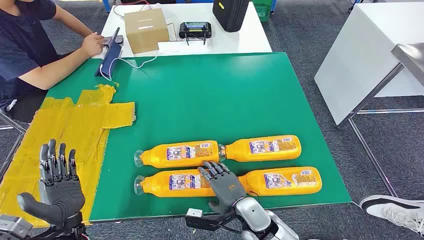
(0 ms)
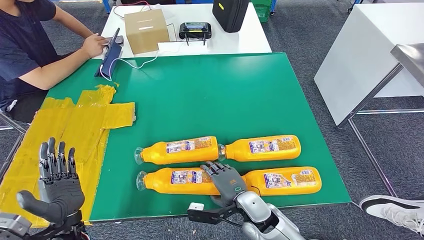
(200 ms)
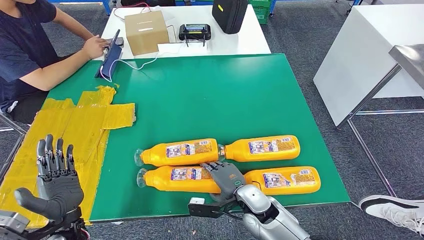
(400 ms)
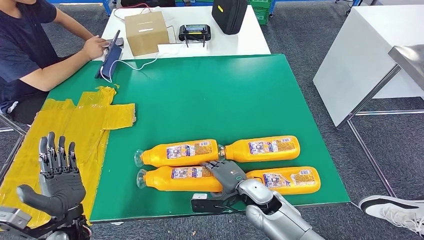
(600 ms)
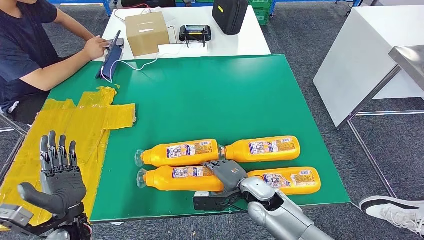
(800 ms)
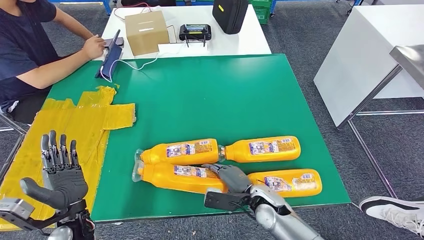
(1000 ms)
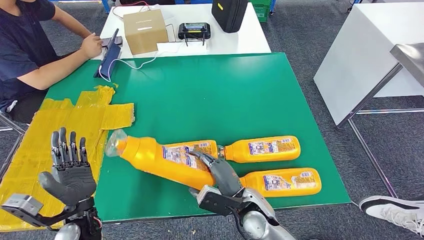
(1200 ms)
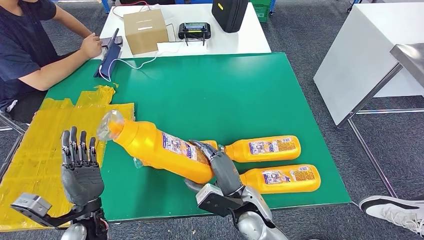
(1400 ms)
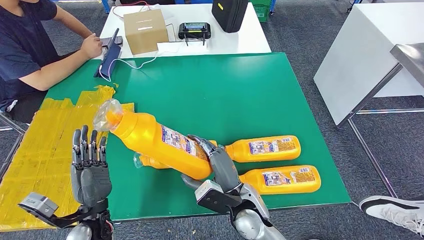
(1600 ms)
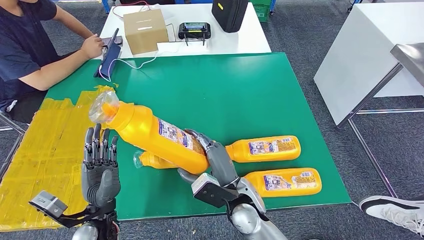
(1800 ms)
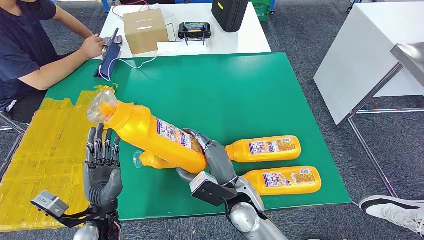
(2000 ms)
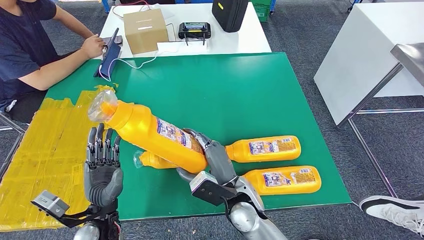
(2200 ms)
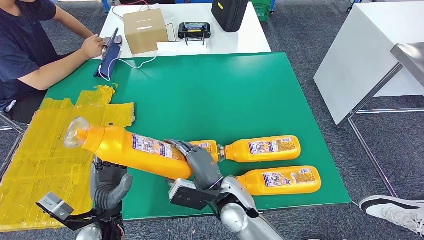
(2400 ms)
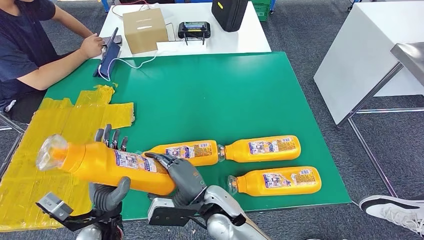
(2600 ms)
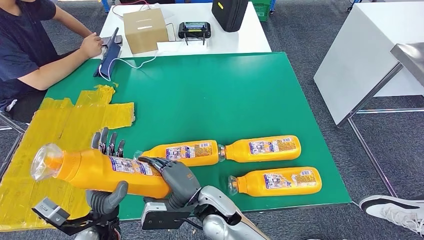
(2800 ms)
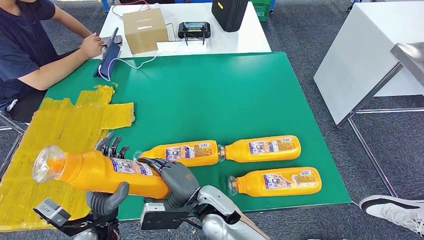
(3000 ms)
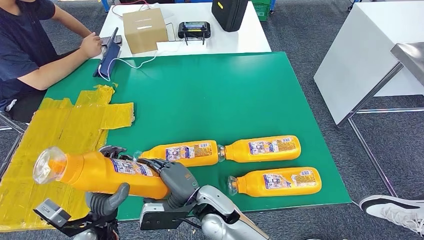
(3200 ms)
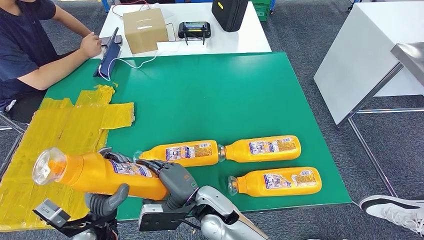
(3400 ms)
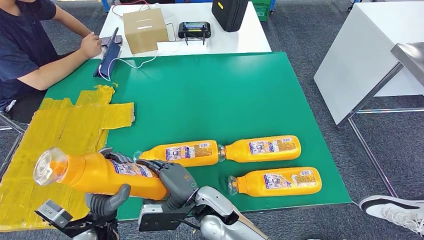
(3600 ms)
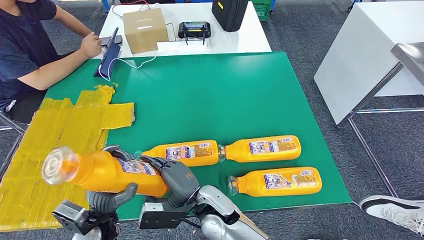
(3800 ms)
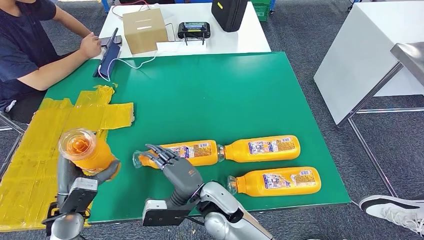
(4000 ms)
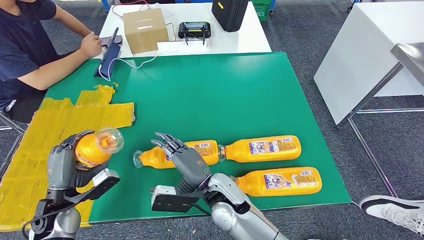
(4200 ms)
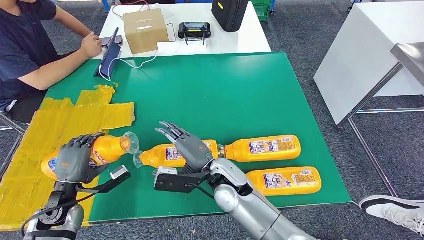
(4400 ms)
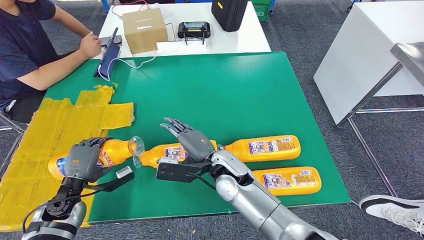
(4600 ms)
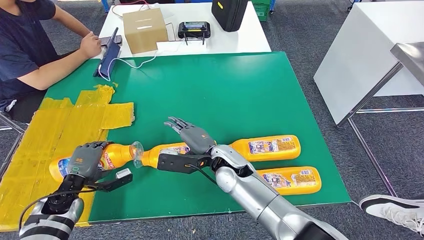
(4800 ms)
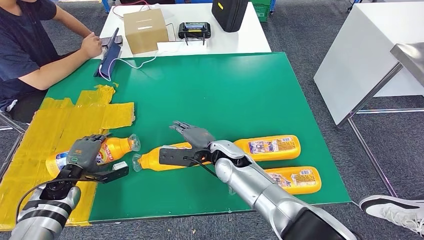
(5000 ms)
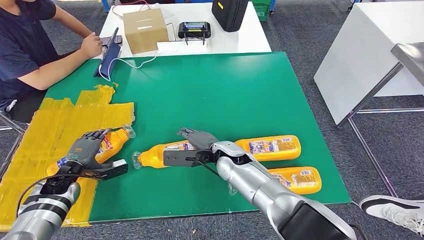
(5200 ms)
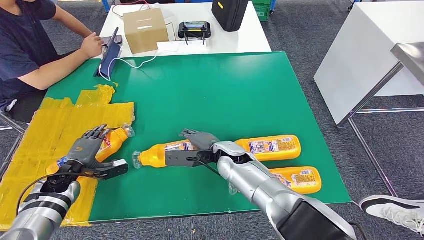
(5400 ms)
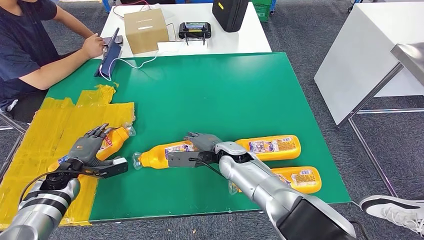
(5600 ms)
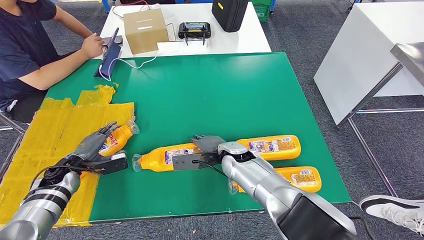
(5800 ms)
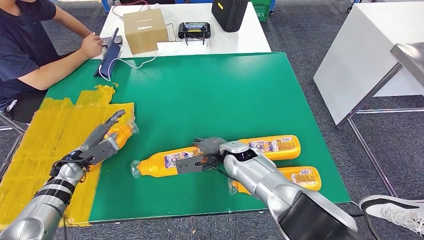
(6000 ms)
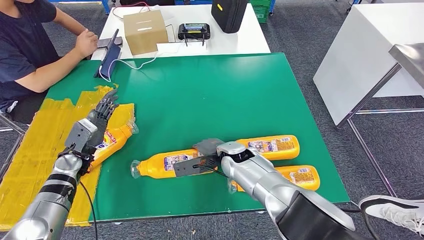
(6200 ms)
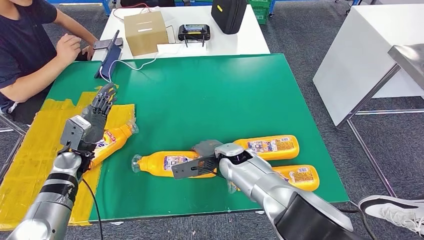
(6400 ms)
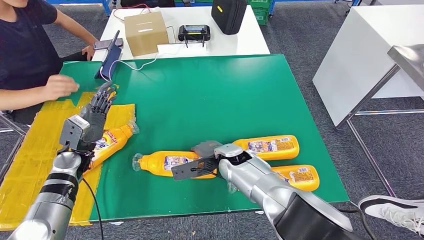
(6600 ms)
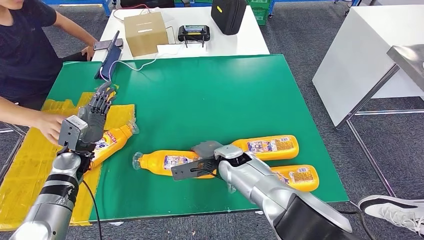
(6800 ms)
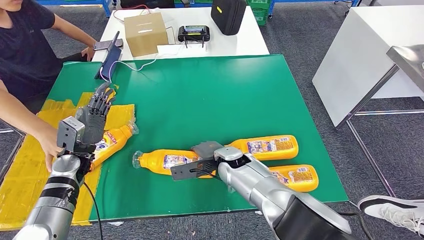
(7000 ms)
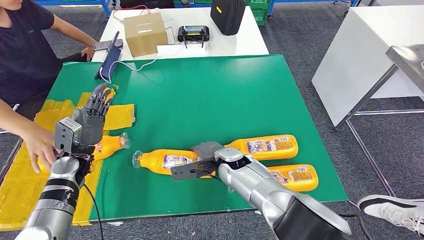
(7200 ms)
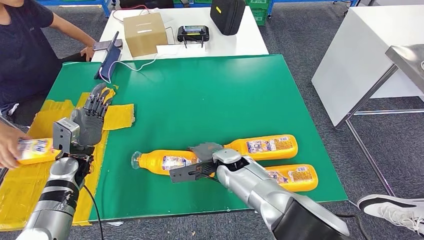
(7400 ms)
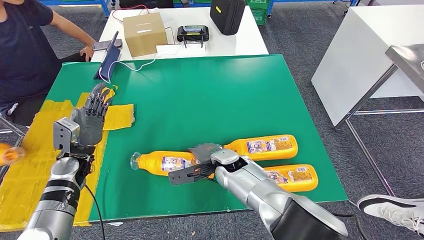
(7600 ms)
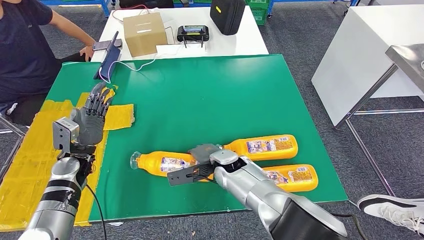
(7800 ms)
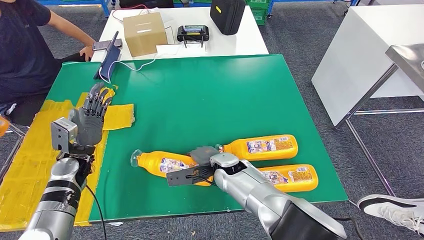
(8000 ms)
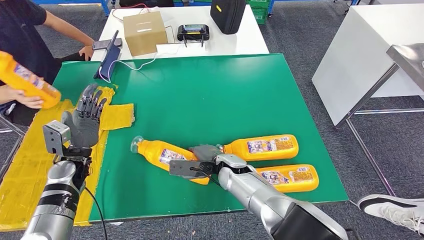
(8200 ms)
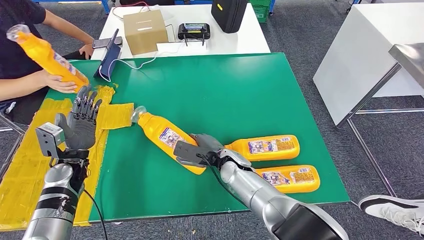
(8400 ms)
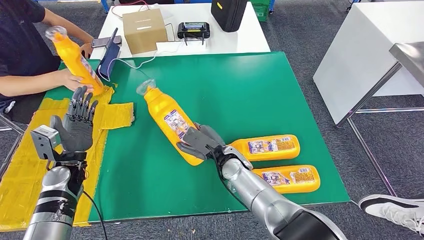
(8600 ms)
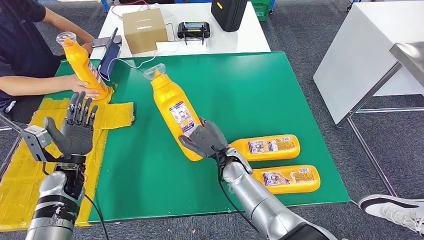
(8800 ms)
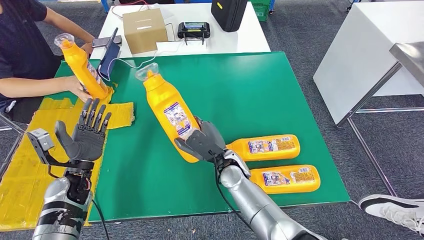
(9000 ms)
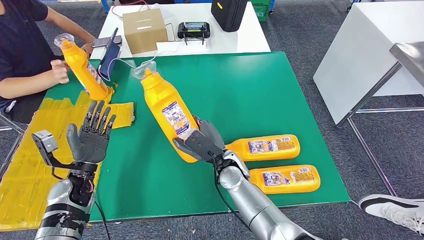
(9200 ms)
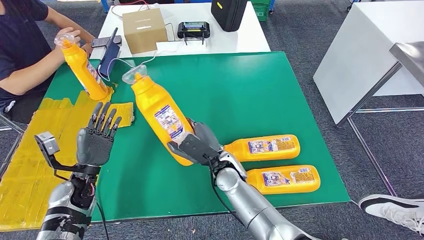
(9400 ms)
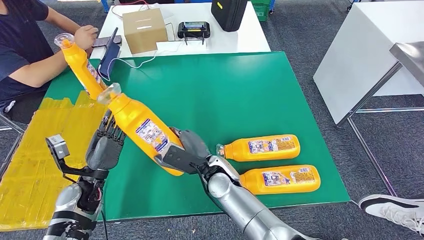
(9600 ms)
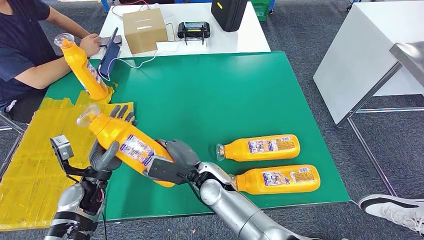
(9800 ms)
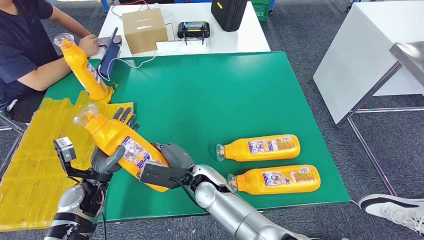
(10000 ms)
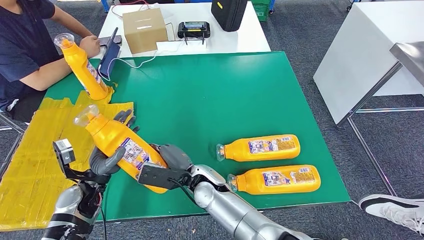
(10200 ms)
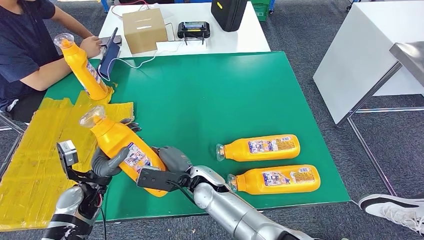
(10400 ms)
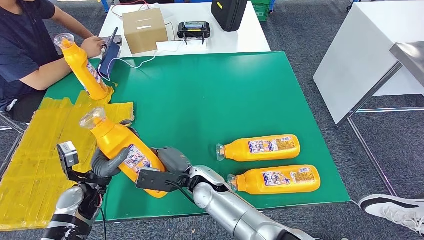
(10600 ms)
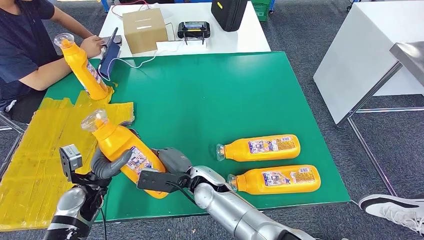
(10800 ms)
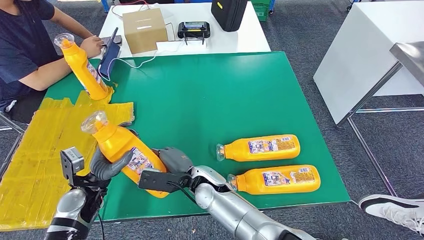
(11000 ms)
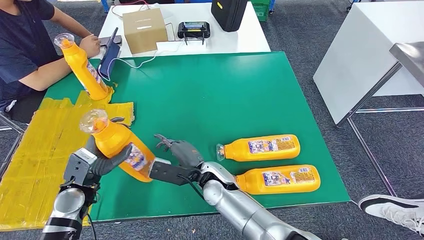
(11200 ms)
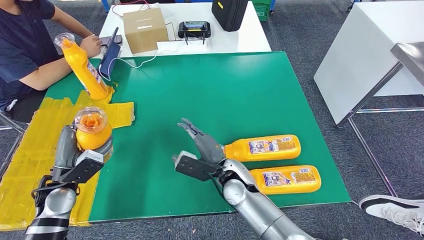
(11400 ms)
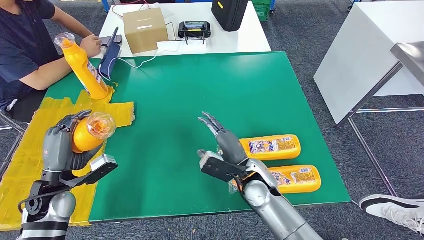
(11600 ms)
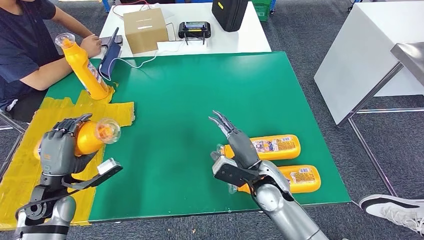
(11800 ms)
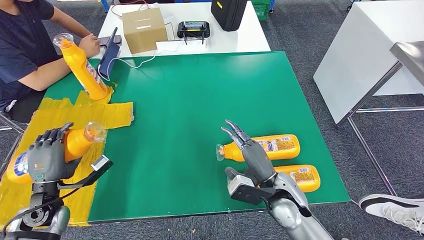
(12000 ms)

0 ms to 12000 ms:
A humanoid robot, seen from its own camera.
Step, 0 ms to 2200 ms: Take the fast-moving consumer goods bottle from the table.
Step, 3200 ms to 5200 ms: Flip the fast-moving consumer goods bottle to the front side.
Step, 6400 ms to 9400 ms: Pick up the fast-moving consumer goods bottle from the table.
1600 ms to 3000 ms: The right hand heads to the left, covering approximately 10 cm.
3000 ms to 4400 ms: The right hand heads forward, covering approximately 5 cm. The left hand moves to the left and forward, roughly 15 cm.
4400 ms to 6000 ms: Both hands move forward, some 10 cm.
10400 ms to 12000 ms: The left hand shifts some 10 cm to the left; the right hand is displaced to the right by roughly 20 cm.

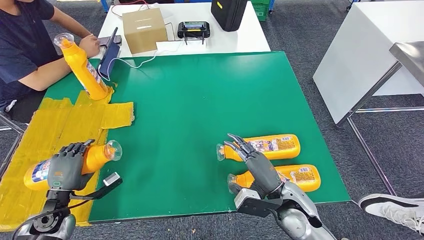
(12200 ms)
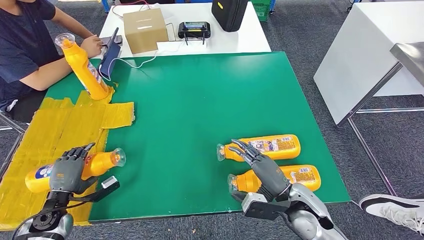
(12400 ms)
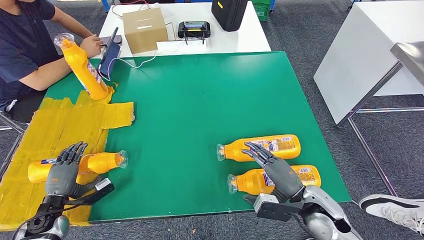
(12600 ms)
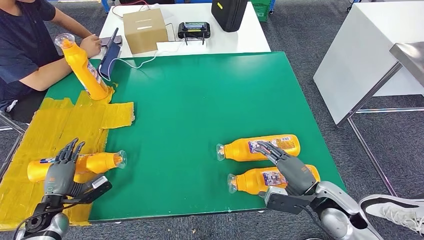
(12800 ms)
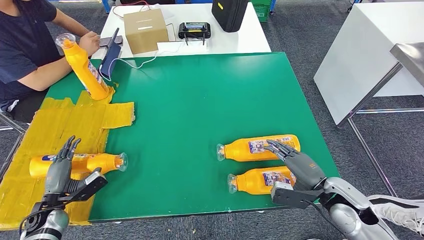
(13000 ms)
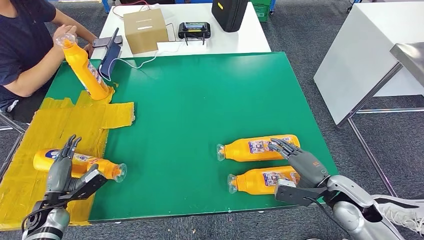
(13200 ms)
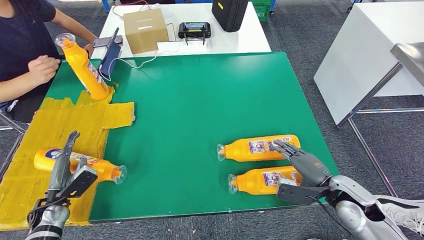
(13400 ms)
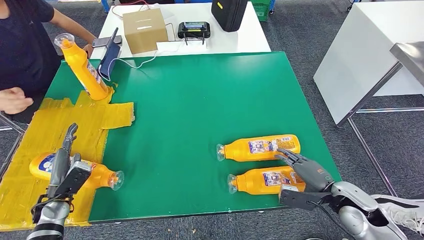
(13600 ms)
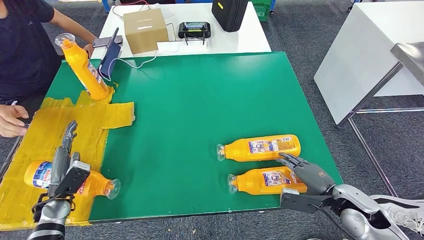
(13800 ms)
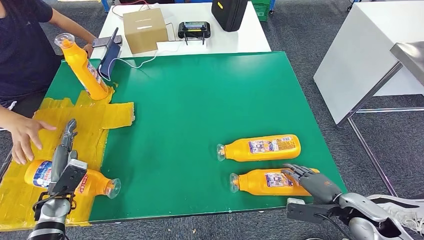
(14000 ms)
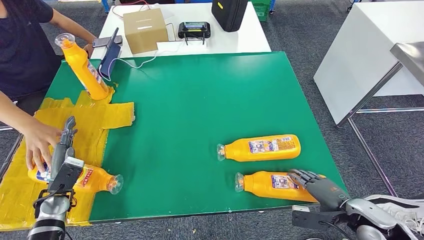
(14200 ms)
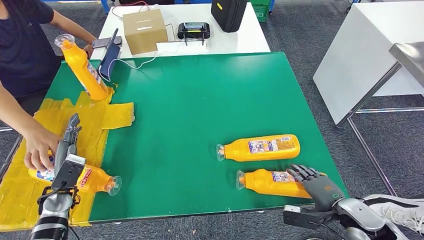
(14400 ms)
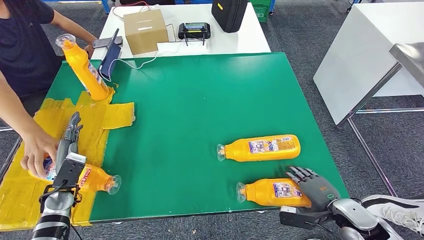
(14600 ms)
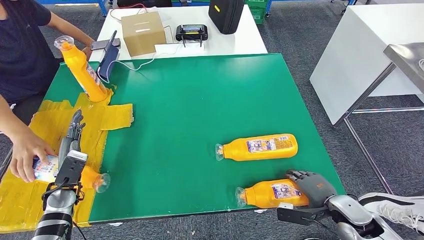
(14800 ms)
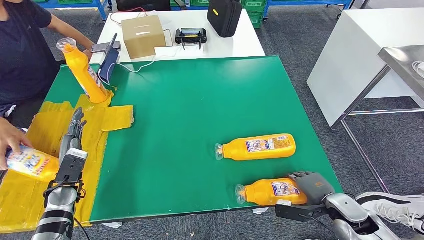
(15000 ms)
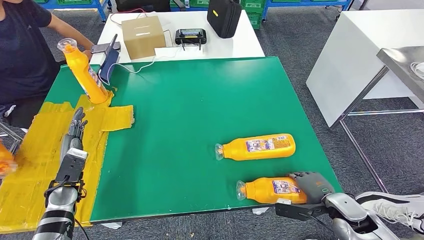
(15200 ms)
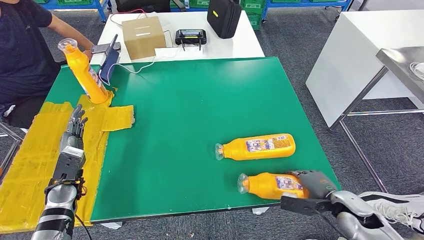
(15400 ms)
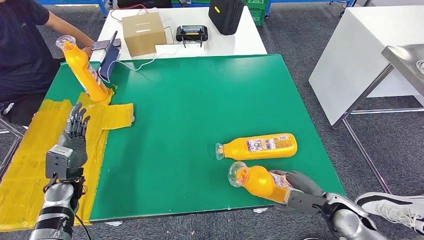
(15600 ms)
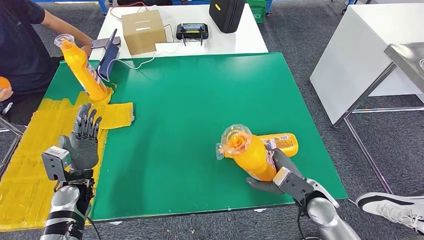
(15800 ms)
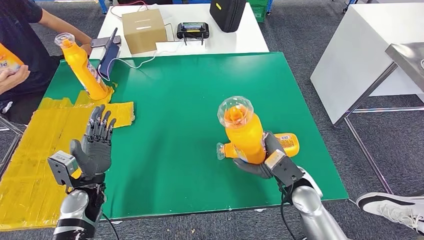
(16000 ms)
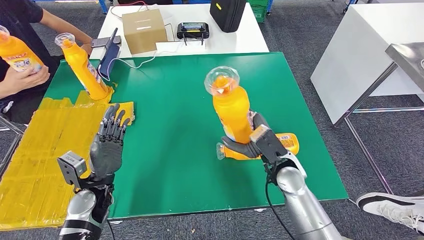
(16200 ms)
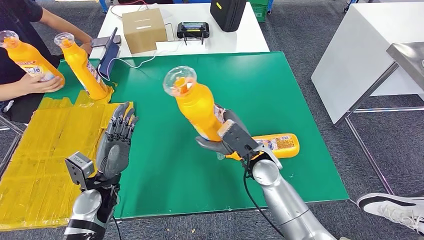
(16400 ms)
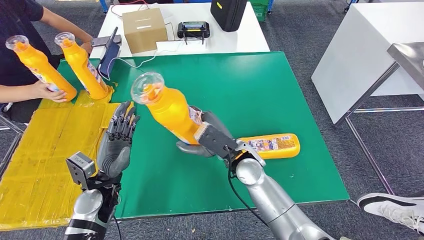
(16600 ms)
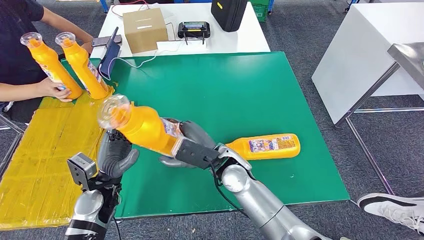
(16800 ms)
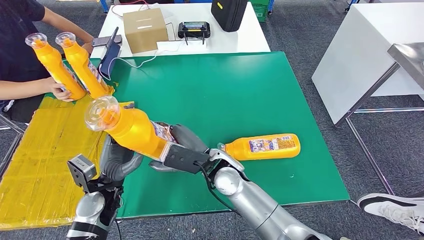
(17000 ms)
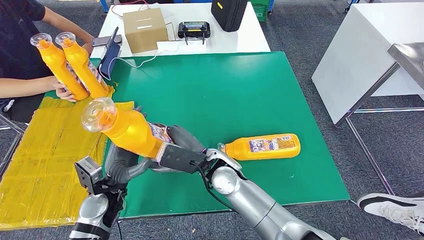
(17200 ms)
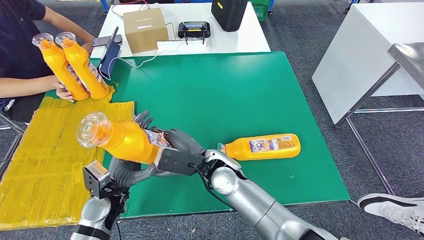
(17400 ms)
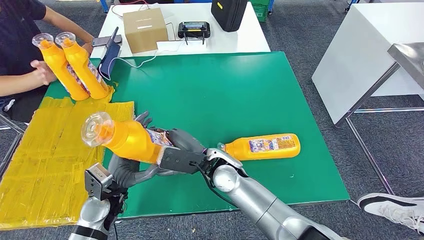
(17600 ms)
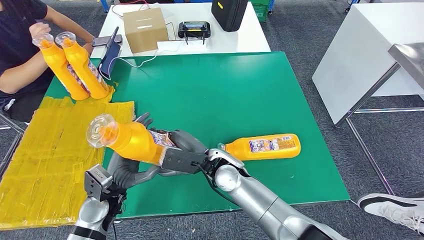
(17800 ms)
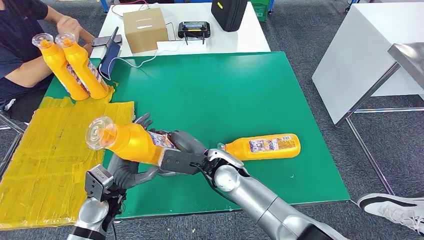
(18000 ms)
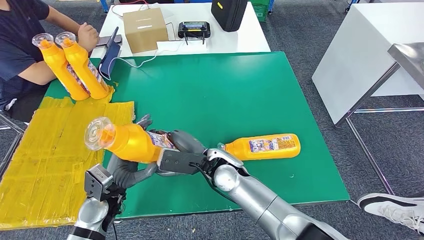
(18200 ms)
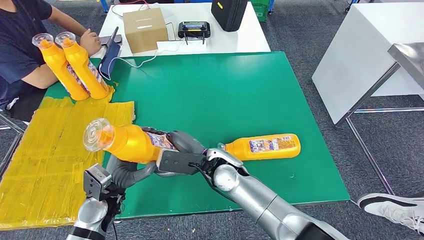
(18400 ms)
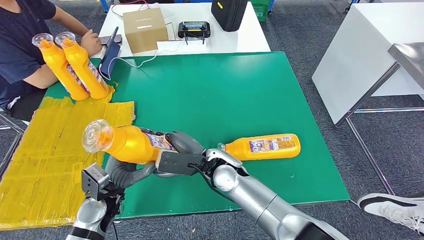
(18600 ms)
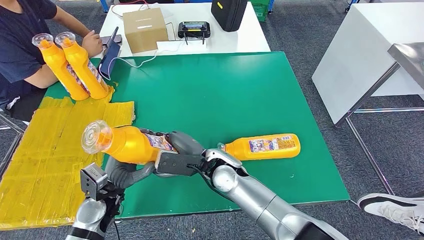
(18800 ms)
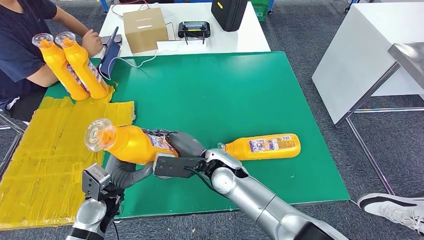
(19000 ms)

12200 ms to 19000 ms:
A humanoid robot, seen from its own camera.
Step, 14600 ms to 16400 ms: Pick up the fast-moving consumer goods bottle from the table.
12200 ms to 13600 ms: The right hand moves to the right, roughly 15 cm.
17600 ms to 19000 ms: The hands stay close to where they were, moving slightly.
